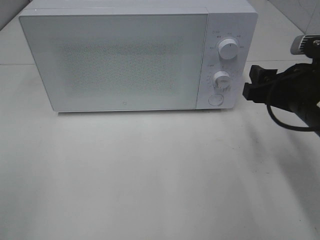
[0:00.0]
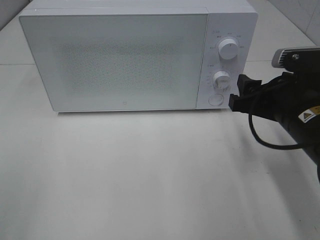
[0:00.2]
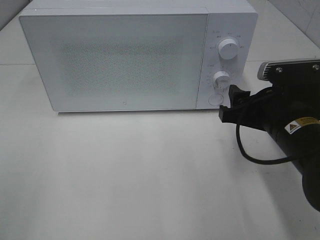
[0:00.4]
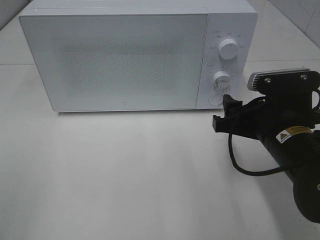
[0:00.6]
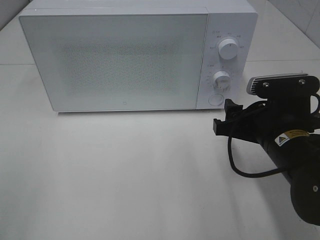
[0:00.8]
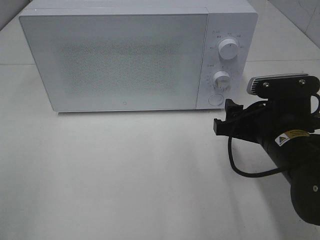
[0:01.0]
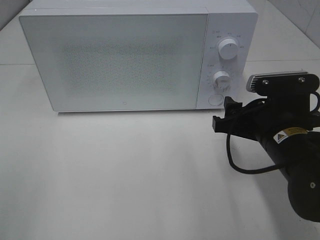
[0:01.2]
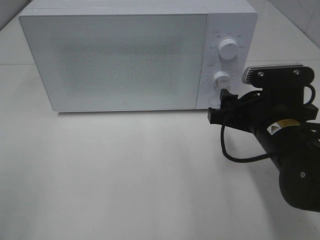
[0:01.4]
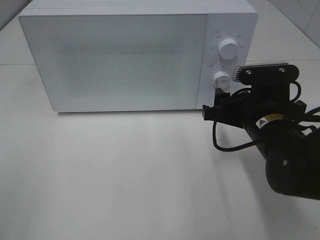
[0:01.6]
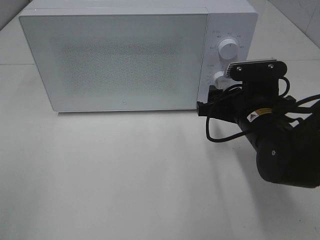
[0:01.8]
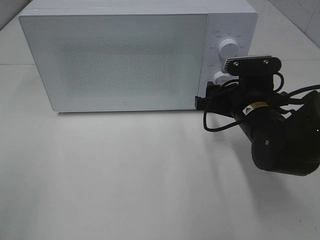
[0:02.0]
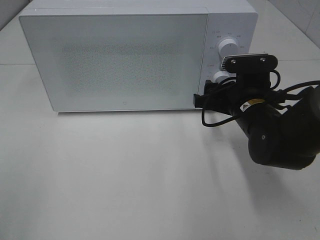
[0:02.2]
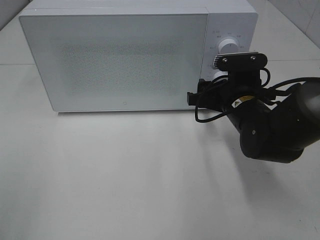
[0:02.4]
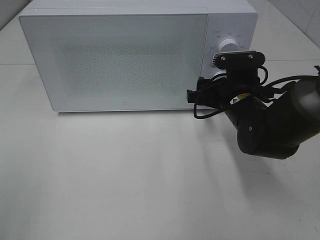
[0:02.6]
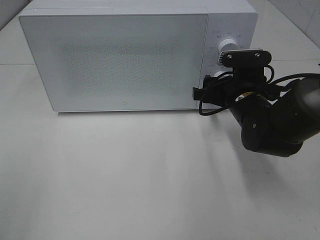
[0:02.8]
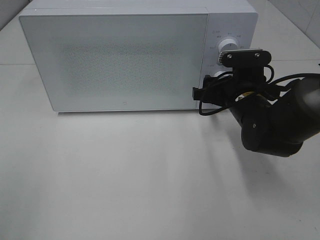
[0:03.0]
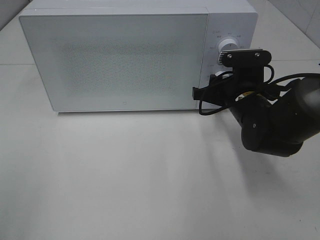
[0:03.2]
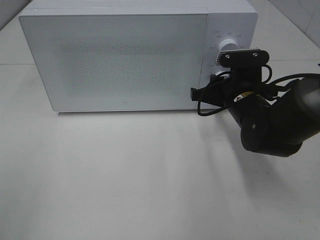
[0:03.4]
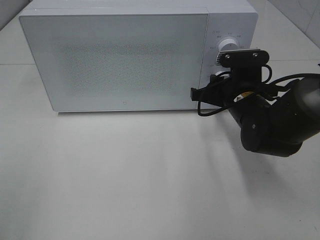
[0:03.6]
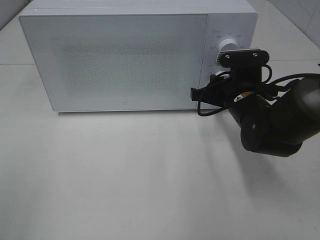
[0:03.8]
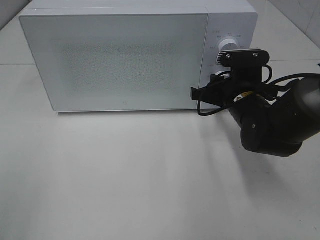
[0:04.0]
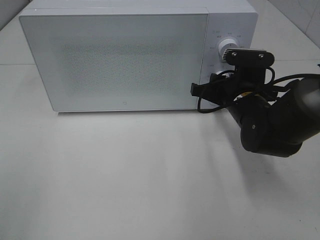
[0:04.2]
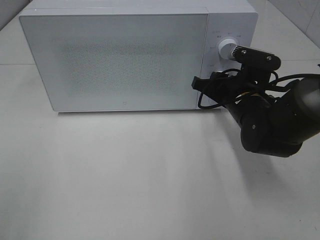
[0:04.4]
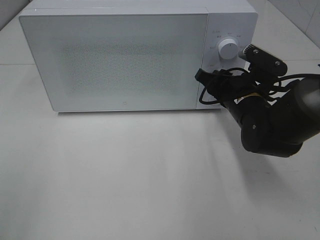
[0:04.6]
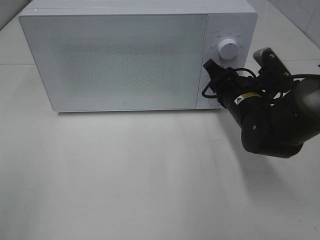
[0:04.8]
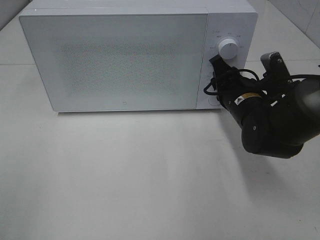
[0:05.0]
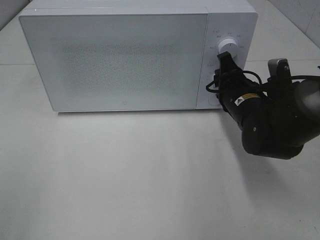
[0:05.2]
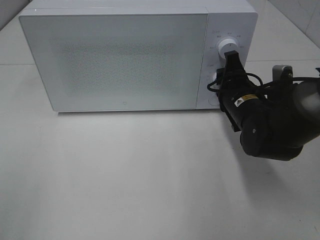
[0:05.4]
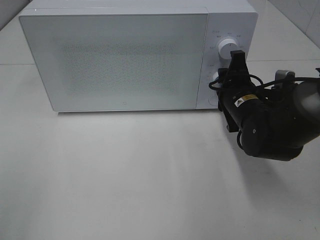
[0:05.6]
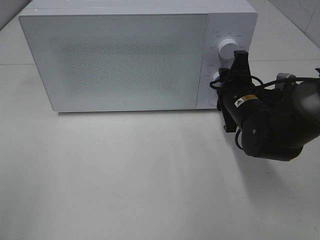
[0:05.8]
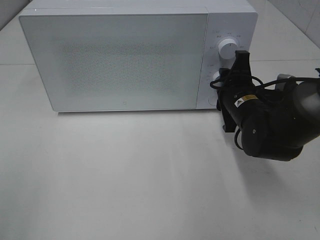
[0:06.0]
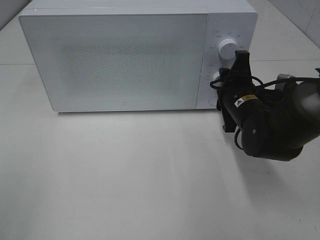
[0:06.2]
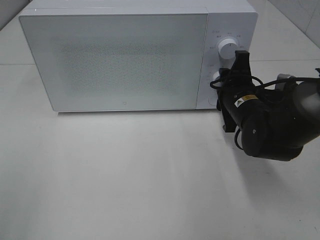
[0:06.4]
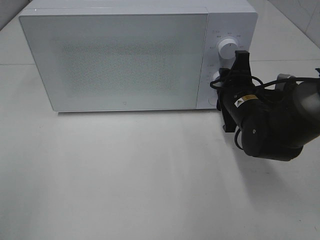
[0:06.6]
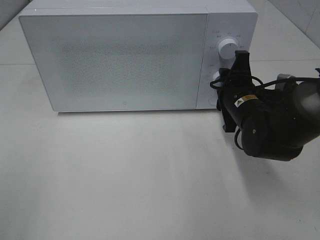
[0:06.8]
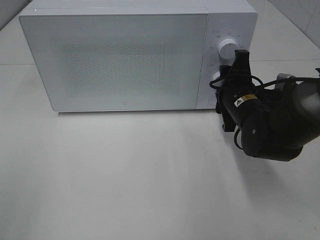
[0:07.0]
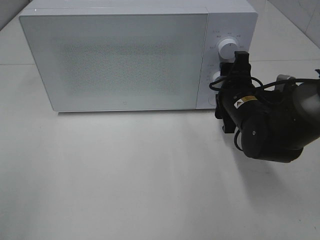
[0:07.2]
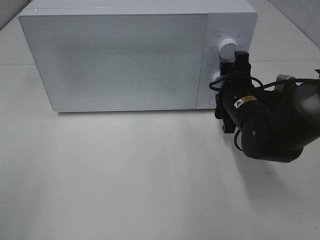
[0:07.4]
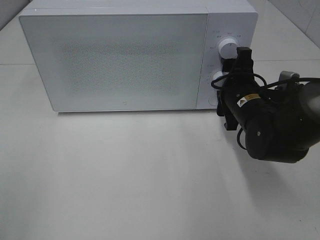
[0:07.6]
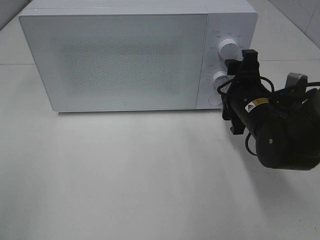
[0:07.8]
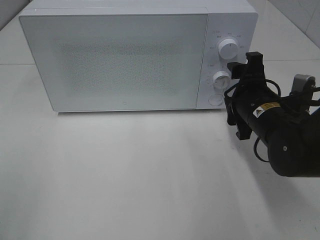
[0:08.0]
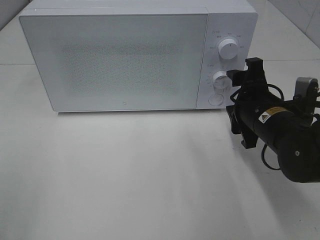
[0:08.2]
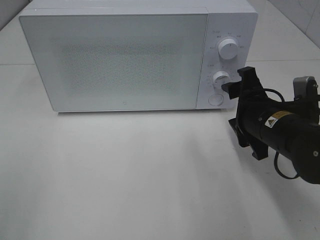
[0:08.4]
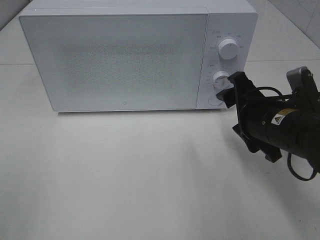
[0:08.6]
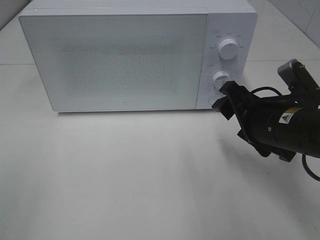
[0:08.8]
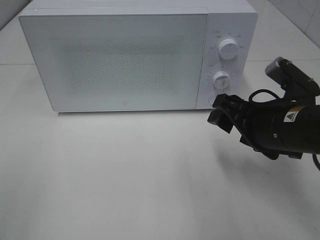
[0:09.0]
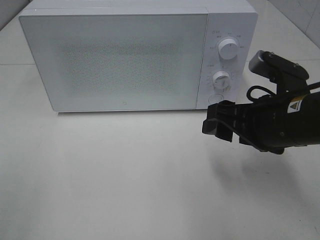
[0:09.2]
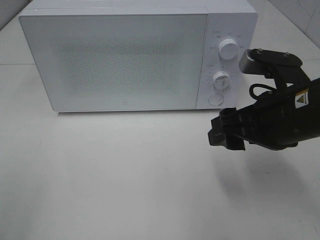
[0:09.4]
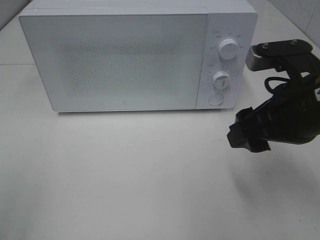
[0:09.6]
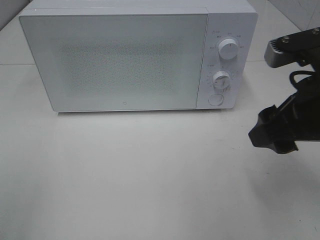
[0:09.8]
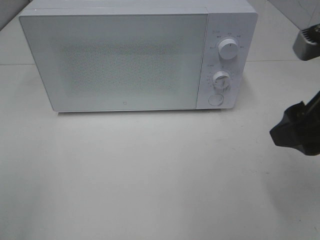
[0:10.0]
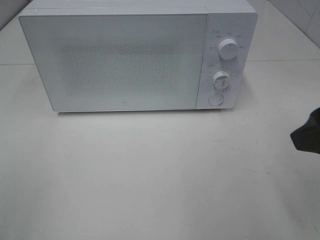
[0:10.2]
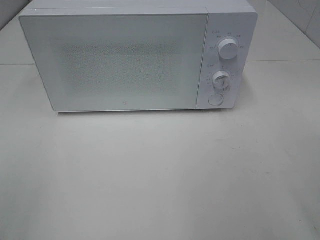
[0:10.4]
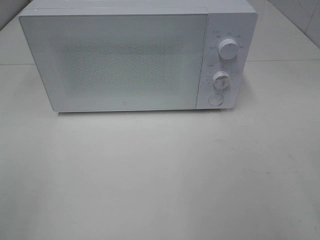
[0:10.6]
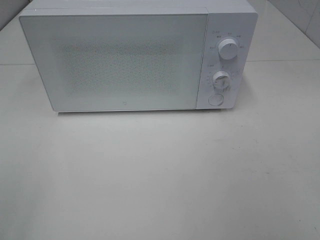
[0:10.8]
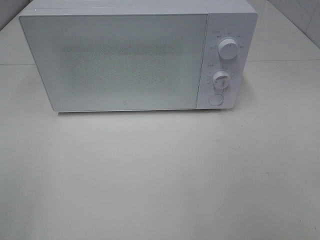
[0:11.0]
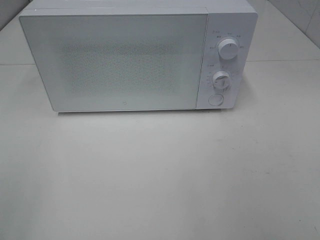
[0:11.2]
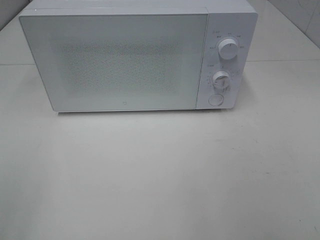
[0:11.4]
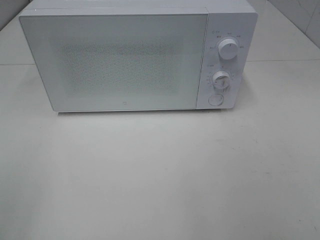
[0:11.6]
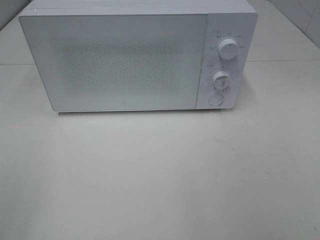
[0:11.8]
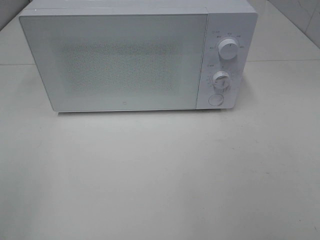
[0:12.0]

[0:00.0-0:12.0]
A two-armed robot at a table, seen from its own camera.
Task of the whole recording: Heat Sandwich.
Step, 0:00.0 to 0:07.8: Right hand: twist timer button.
0:00.0 to 0:01.6: The right gripper goes some 5 cm to the left and downward.
0:01.6 to 0:03.0: The right gripper goes approximately 5 cm forward.
0:03.0 to 0:04.4: The right gripper closes.
0:06.0 to 0:07.6: Neither gripper changes place.
0:07.6 to 0:09.0: The right gripper shifts approximately 10 cm backward.
0:09.0 to 0:10.4: The right gripper travels upward, backward and to the right by some 20 cm.

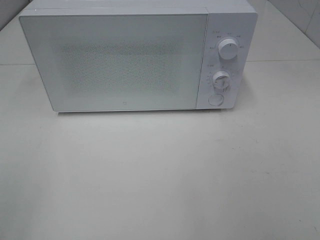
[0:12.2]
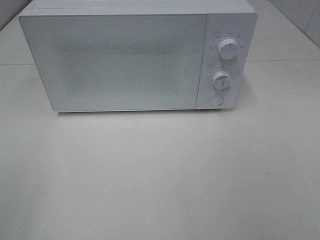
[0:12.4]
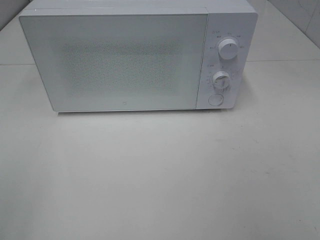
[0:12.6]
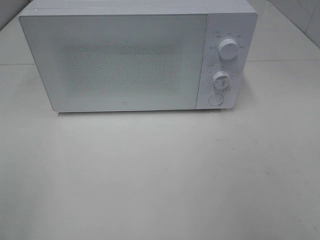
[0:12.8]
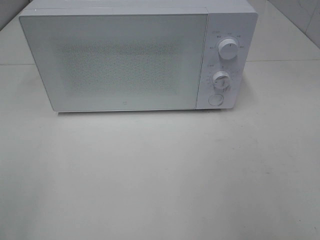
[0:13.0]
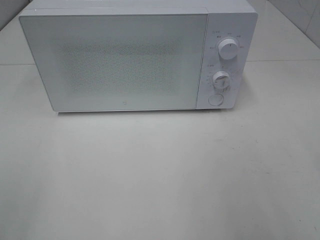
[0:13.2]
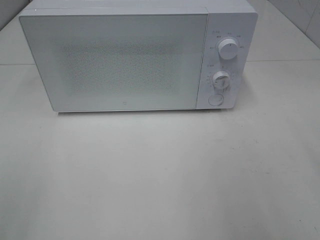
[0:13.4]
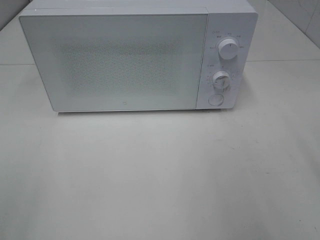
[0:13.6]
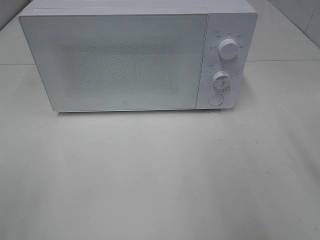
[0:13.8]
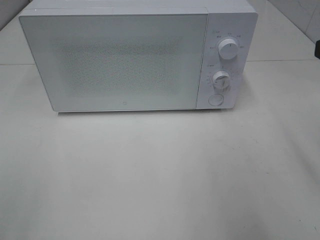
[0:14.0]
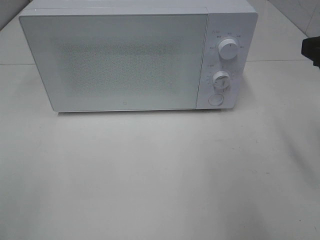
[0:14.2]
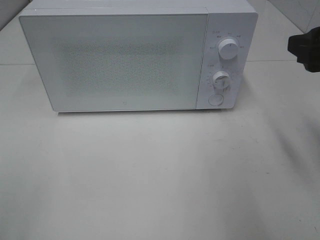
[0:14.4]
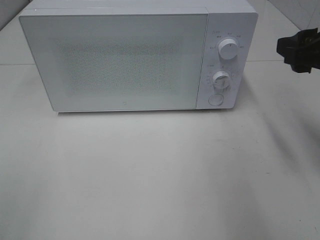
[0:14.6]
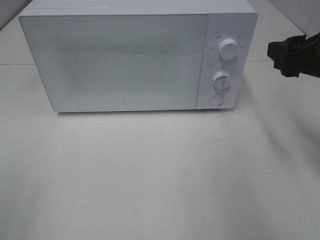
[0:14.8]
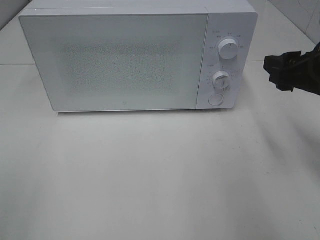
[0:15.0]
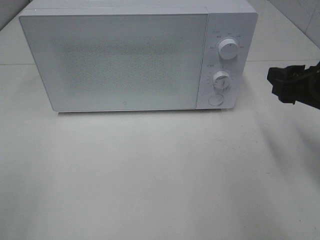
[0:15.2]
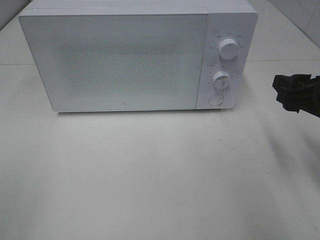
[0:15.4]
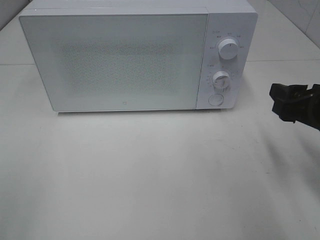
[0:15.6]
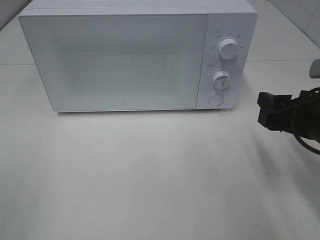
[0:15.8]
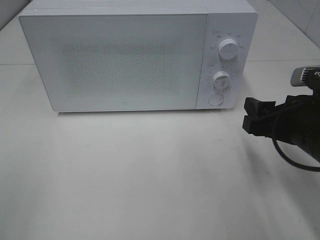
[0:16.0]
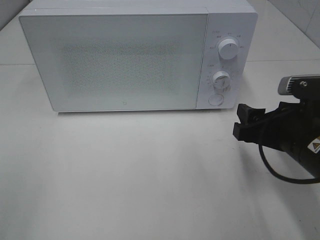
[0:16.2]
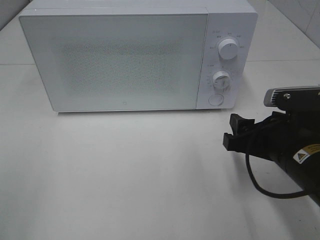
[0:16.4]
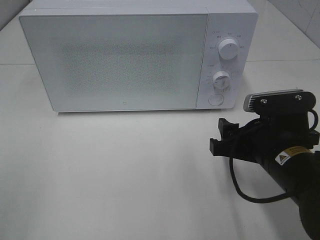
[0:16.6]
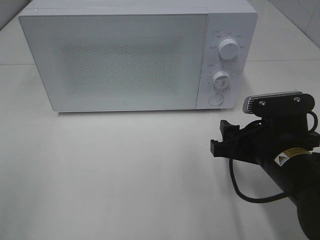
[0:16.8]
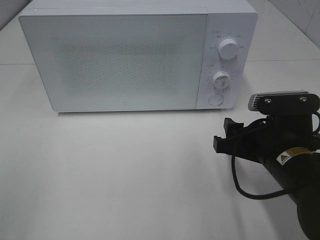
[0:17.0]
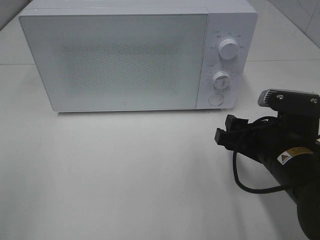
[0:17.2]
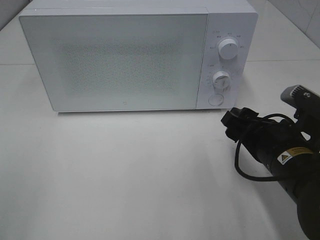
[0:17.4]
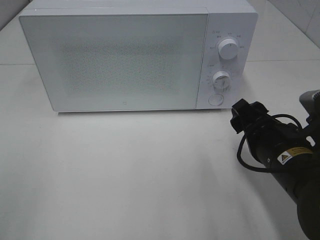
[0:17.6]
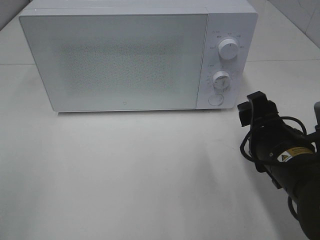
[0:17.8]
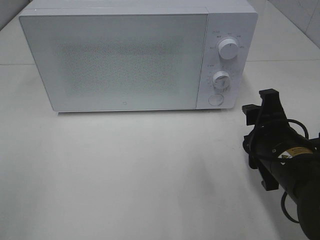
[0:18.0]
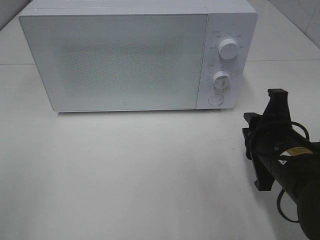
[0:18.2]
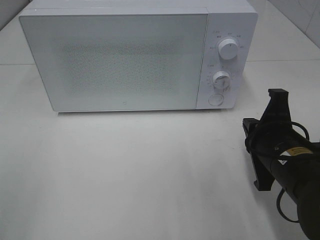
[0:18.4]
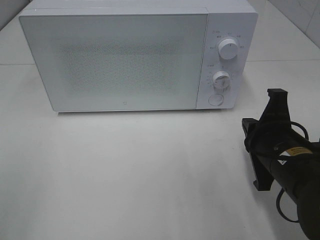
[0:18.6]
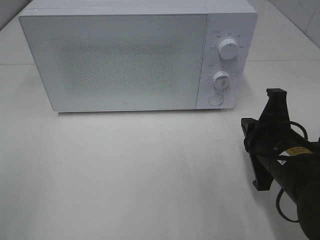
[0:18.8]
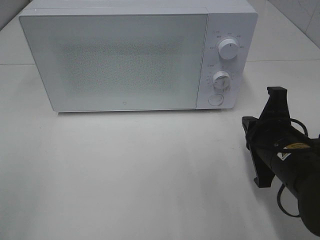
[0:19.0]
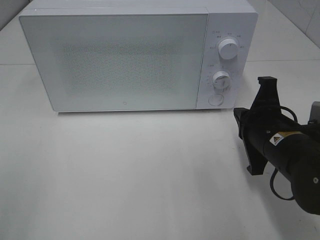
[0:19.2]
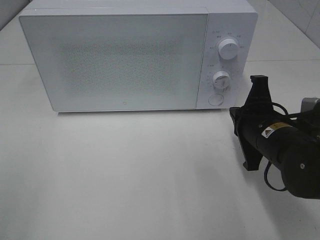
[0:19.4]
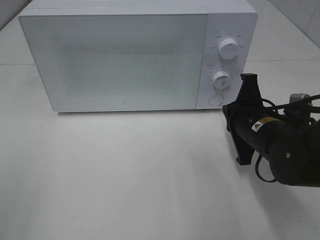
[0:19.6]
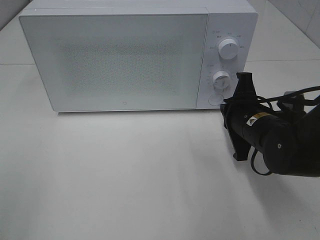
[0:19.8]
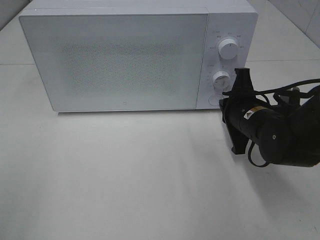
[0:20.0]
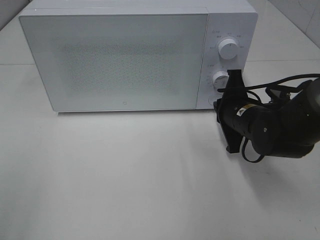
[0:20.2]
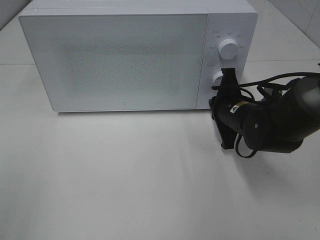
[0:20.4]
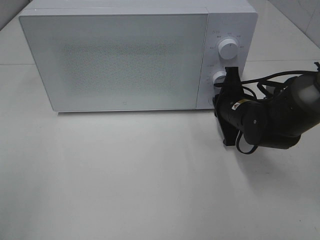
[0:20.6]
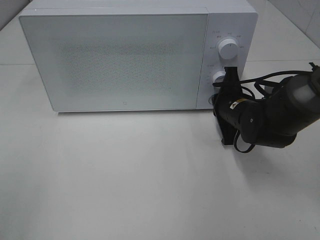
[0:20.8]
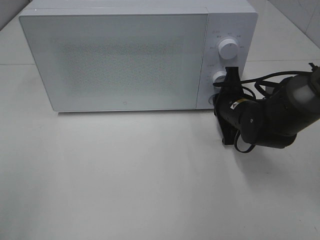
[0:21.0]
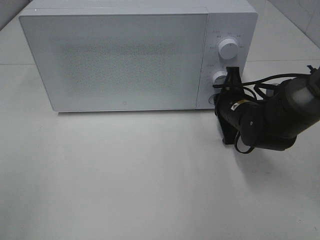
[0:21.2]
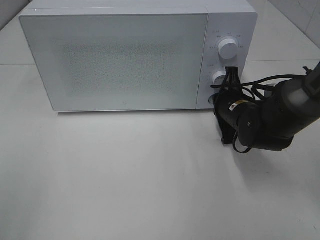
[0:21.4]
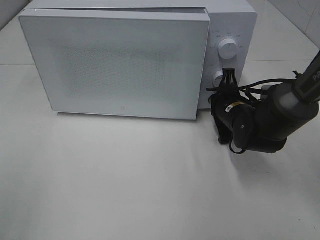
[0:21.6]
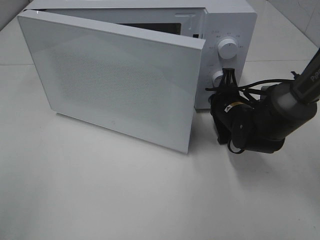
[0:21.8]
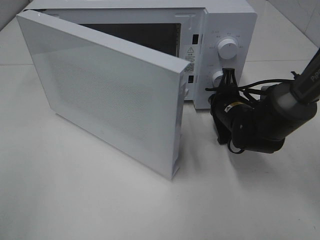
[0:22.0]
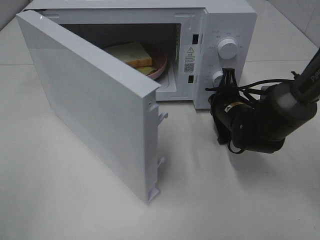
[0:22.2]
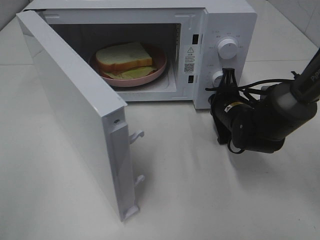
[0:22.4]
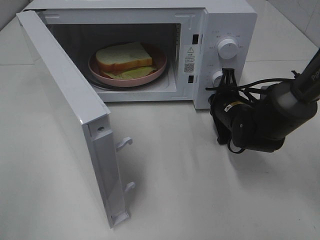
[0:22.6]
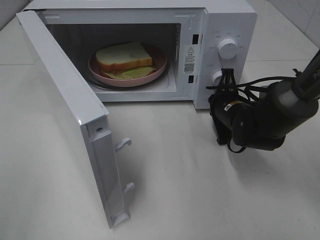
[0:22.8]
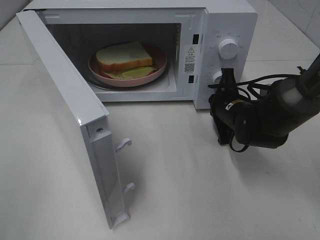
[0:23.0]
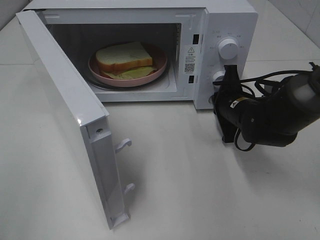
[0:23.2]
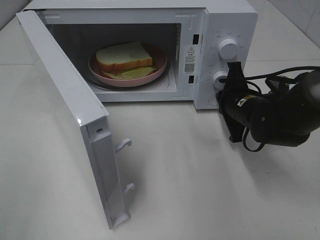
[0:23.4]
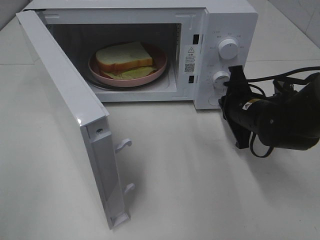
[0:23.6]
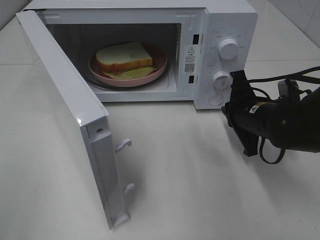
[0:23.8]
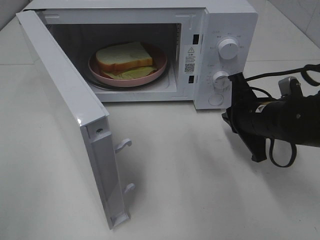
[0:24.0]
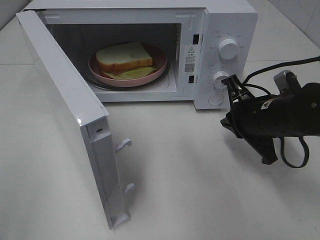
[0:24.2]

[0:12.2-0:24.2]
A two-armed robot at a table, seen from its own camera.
Task of the whole recording: Heat Sandwich.
Step, 0:12.2 to 0:23.4: Right hand: press the switch.
0:13.8 to 0:15.2: The right gripper goes some 10 cm downward and forward.
0:15.2 to 0:16.6: The right gripper is displaced to the left and downward by roughly 10 cm.
0:16.6 to 0:18.2: The right gripper closes.
0:18.2 to 0:19.8: The right gripper shifts approximately 10 cm forward, and closes its fingers.
0:19.8 to 0:21.2: The right gripper is displaced forward by some 5 cm.
0:22.6 to 0:24.2: The right gripper is displaced backward and upward by some 10 cm.
